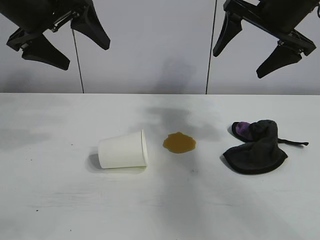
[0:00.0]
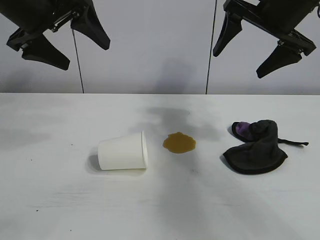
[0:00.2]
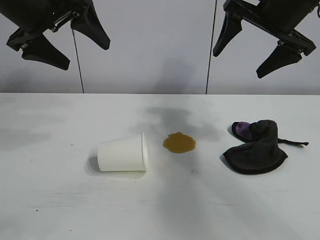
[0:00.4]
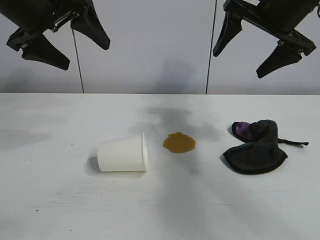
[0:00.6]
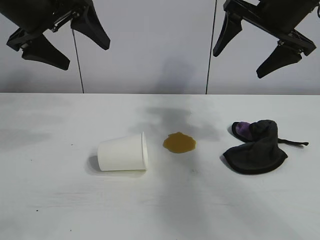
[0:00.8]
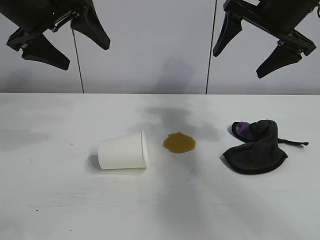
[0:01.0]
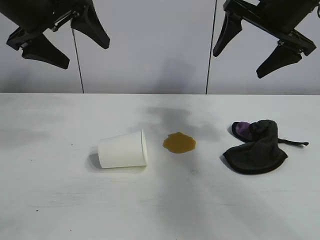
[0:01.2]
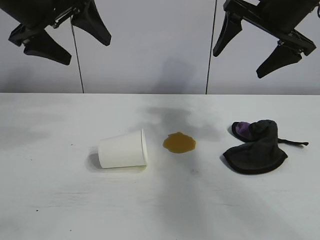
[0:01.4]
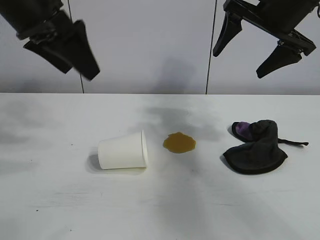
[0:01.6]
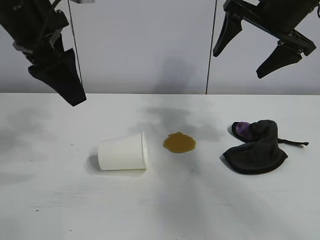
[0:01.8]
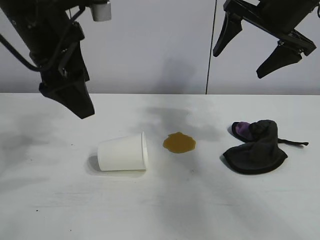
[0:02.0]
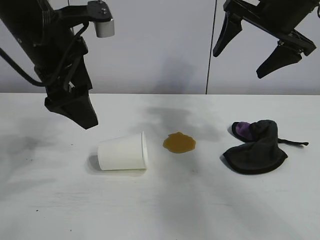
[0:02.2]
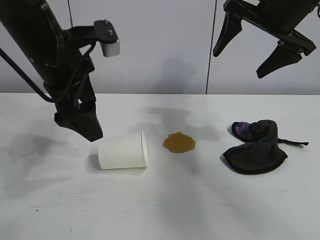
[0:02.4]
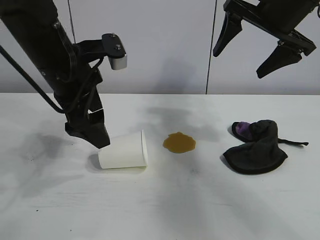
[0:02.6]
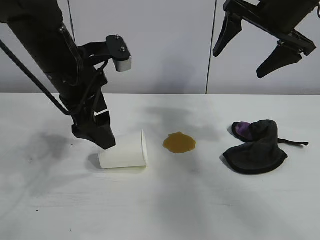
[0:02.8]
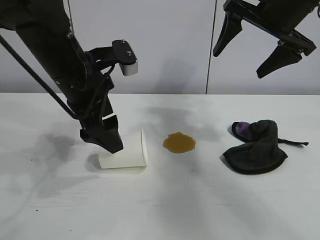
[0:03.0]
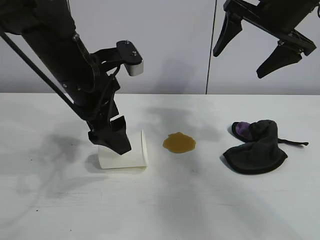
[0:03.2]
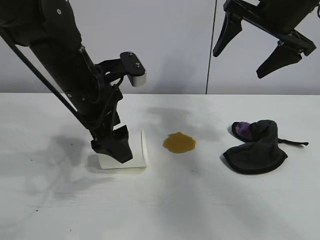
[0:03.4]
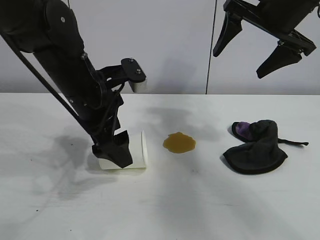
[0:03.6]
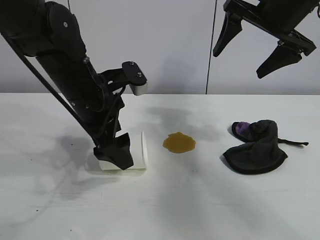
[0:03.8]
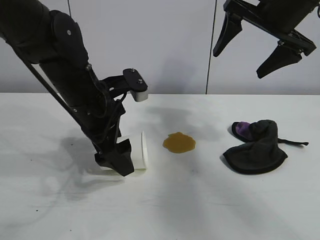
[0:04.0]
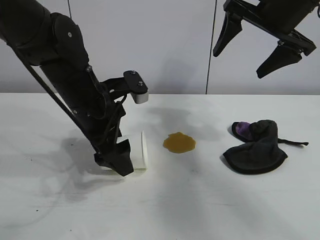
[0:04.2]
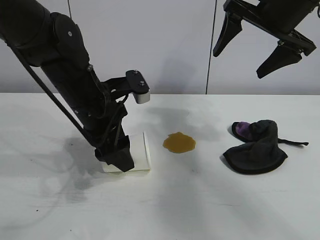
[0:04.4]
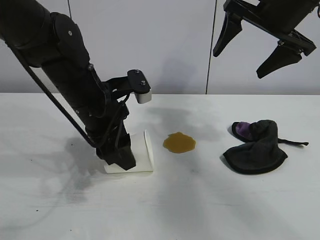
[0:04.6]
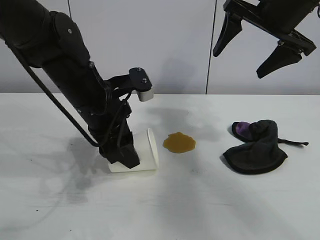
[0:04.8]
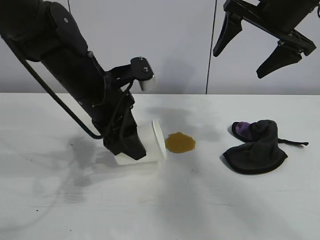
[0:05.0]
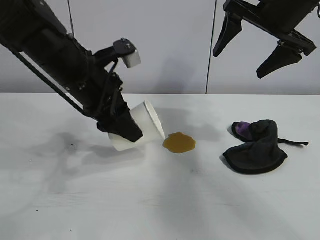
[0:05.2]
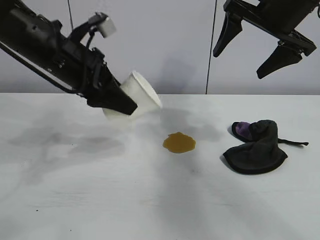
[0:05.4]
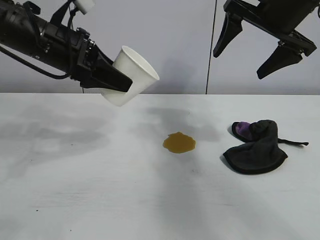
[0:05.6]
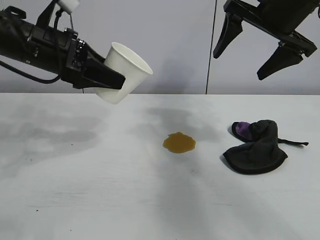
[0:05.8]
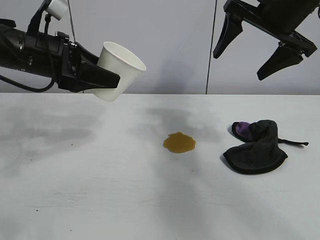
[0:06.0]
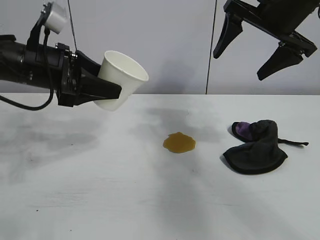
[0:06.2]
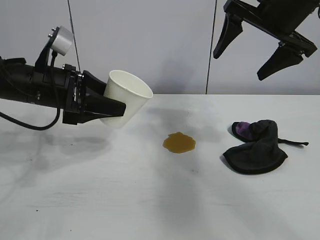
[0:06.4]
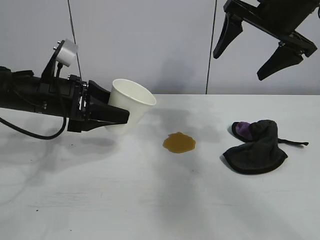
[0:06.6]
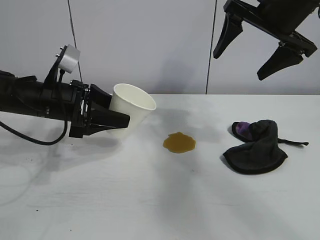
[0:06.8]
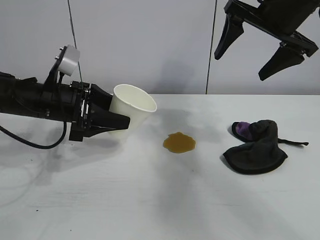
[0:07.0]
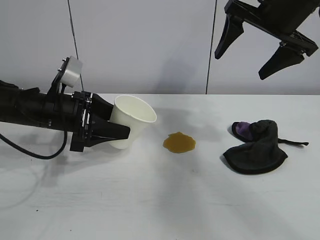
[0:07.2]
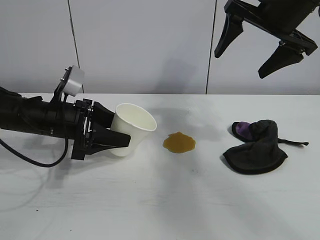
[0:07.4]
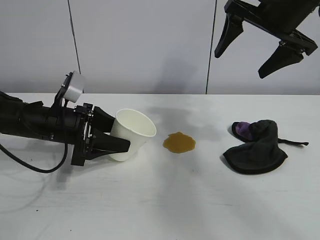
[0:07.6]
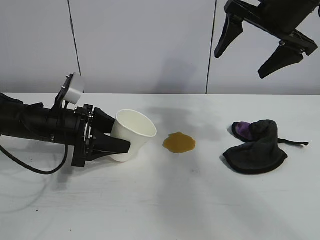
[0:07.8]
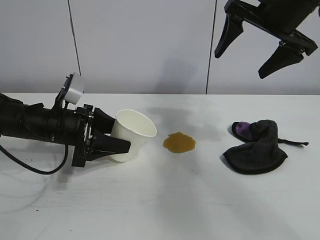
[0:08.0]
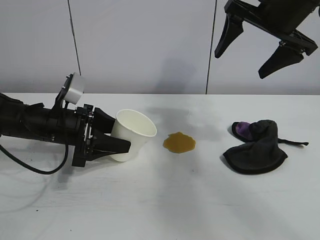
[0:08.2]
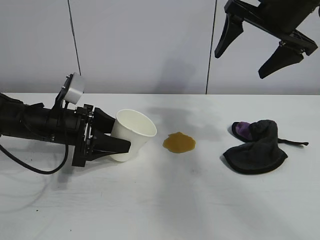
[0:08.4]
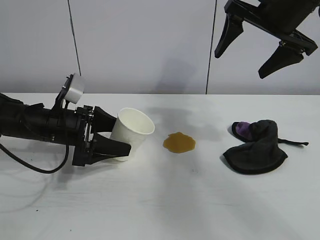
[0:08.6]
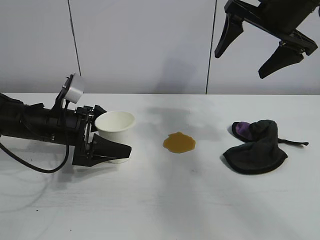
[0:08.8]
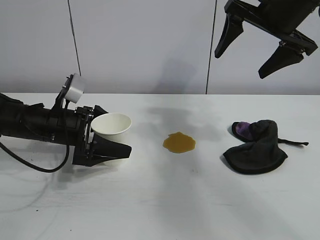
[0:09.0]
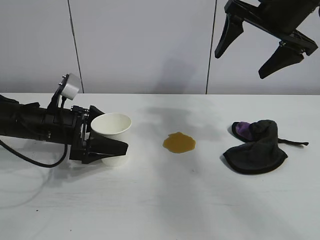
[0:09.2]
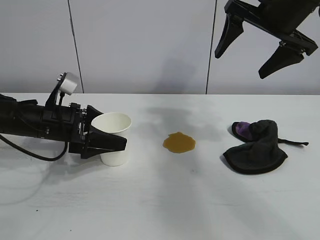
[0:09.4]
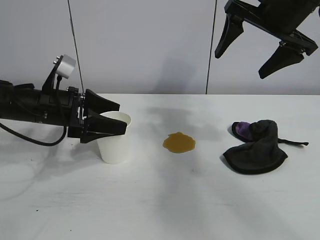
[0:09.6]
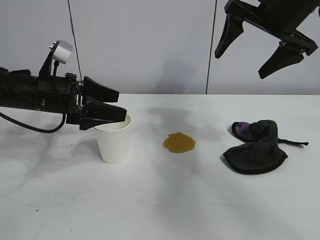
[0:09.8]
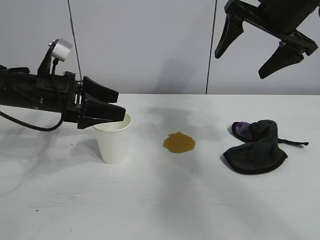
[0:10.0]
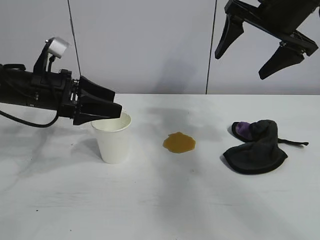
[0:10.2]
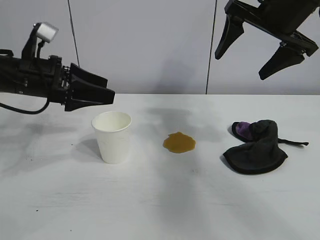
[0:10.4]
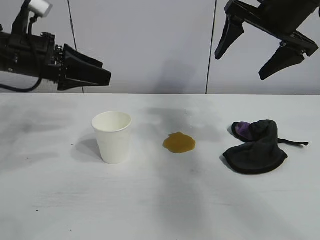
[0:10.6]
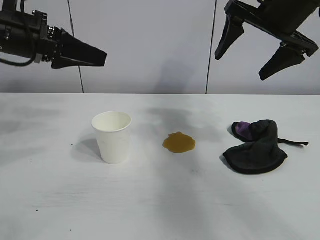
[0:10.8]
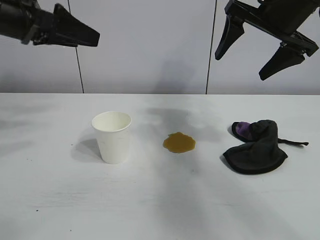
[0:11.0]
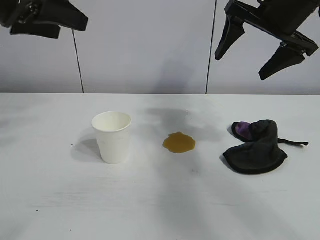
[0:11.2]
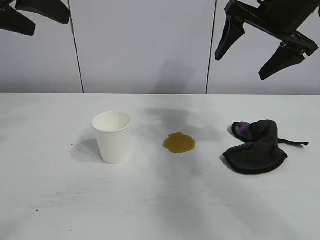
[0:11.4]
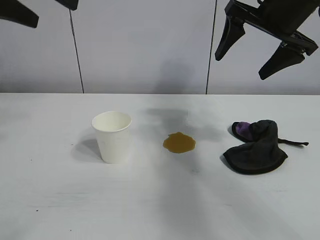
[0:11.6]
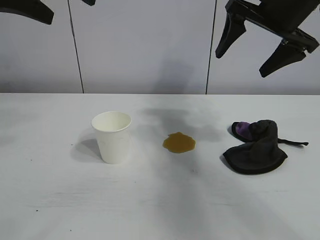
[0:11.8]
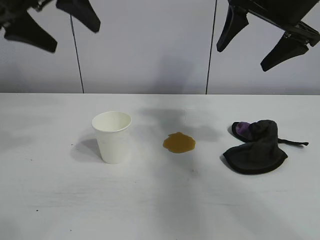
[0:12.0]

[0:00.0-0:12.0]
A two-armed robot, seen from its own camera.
Task of the whole recording: the left gripper pick up the fallen cup and place it upright, the right gripper grasp the black rag and wipe the stain on the table, the right gripper put the black rag back in its original position.
Step, 0:01.2 to 0:04.2: Grasp the paper cup with left gripper.
Step, 0:04.4 to 0:08.8: Stand the paper cup upright with left gripper.

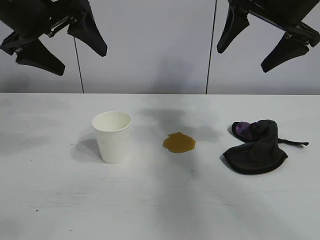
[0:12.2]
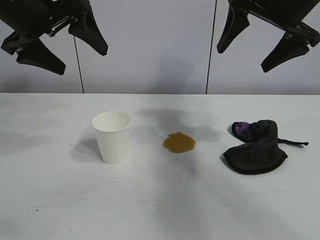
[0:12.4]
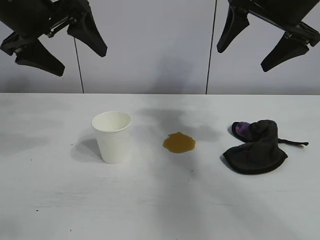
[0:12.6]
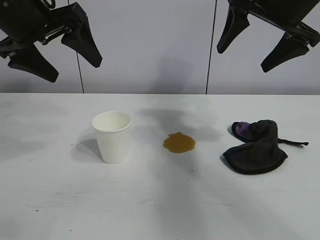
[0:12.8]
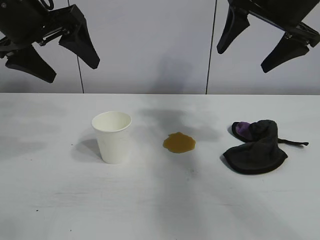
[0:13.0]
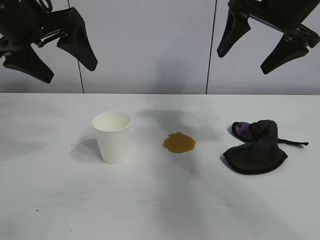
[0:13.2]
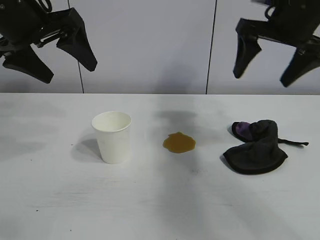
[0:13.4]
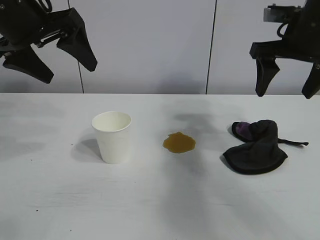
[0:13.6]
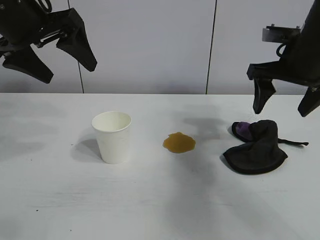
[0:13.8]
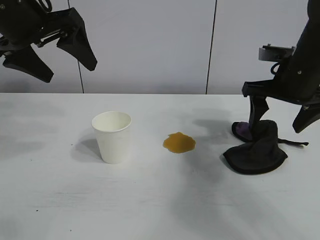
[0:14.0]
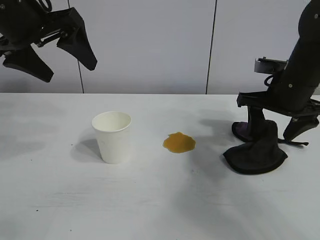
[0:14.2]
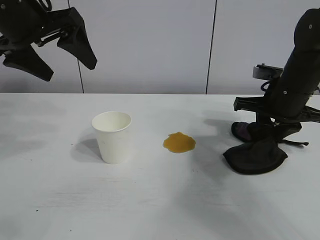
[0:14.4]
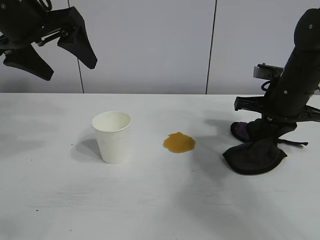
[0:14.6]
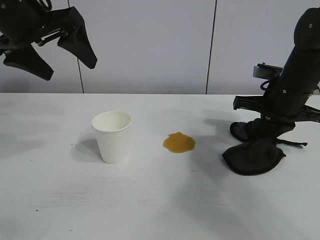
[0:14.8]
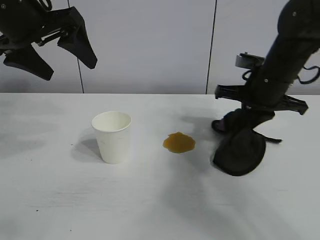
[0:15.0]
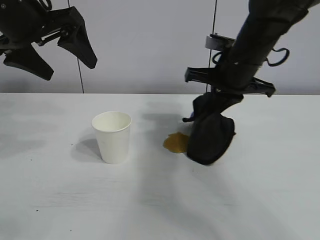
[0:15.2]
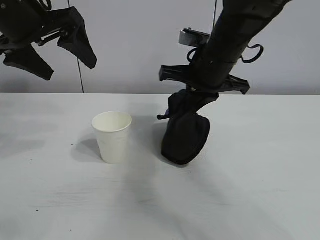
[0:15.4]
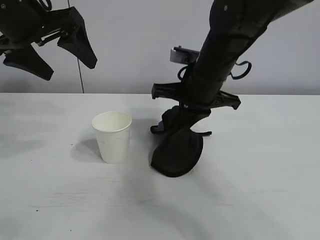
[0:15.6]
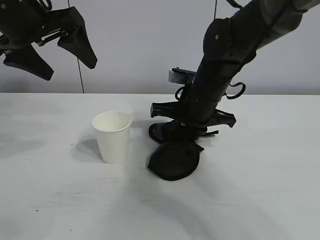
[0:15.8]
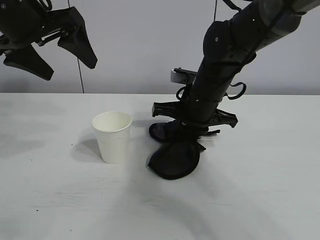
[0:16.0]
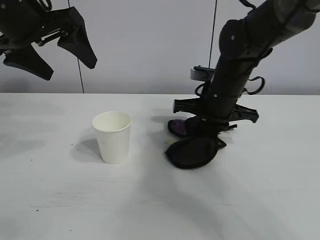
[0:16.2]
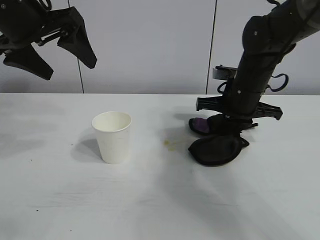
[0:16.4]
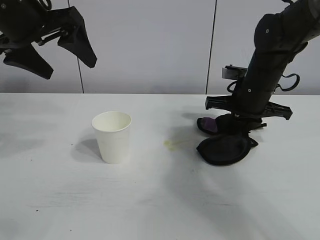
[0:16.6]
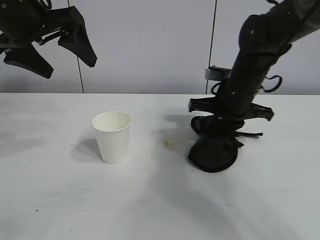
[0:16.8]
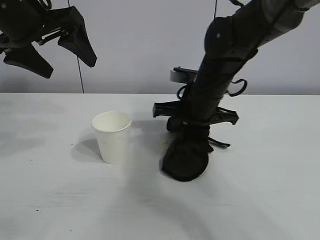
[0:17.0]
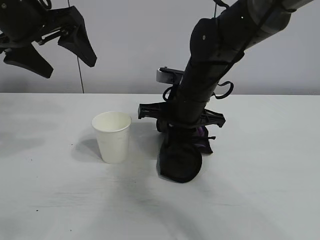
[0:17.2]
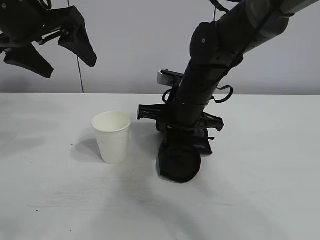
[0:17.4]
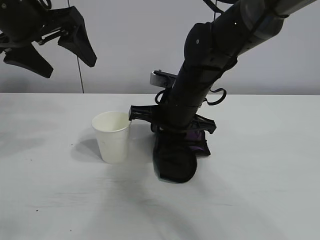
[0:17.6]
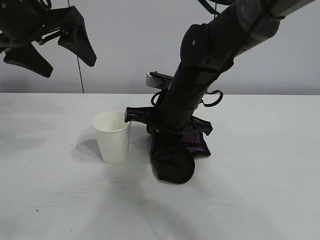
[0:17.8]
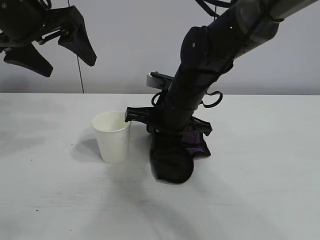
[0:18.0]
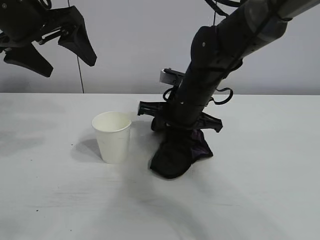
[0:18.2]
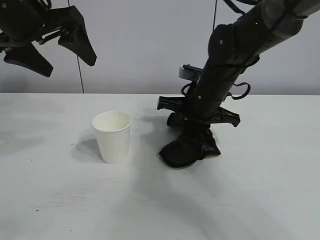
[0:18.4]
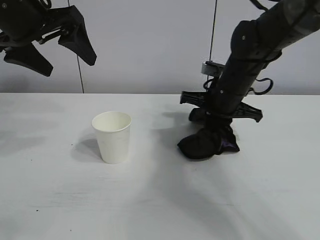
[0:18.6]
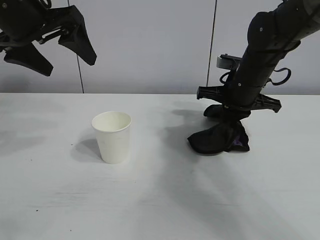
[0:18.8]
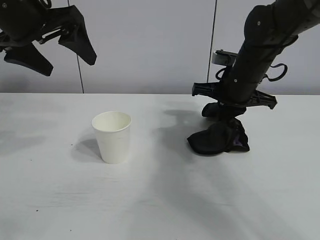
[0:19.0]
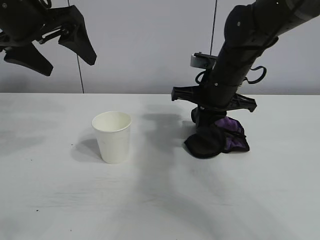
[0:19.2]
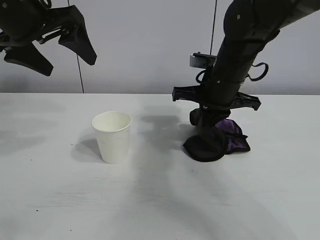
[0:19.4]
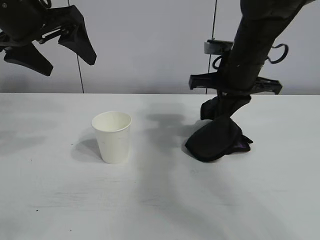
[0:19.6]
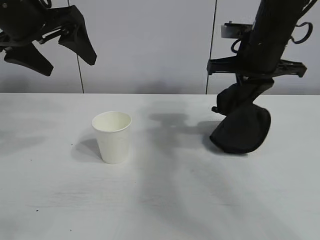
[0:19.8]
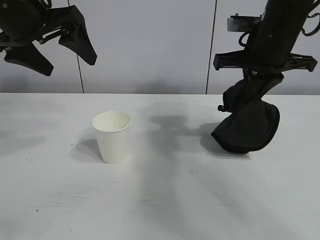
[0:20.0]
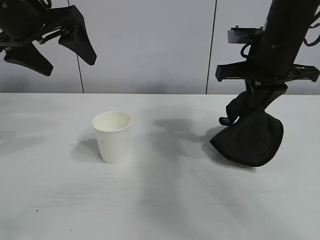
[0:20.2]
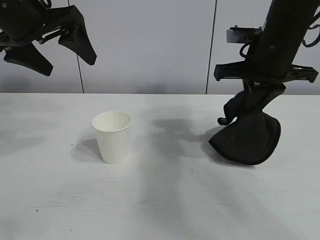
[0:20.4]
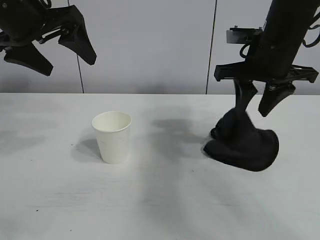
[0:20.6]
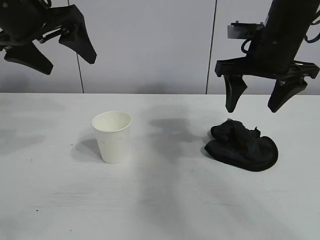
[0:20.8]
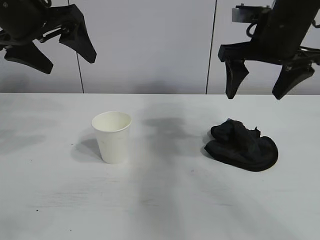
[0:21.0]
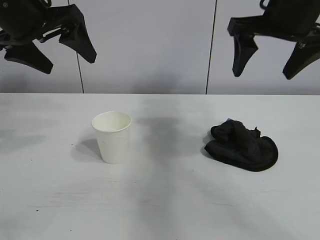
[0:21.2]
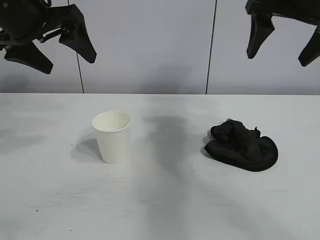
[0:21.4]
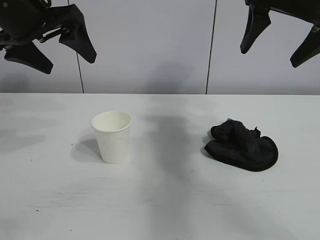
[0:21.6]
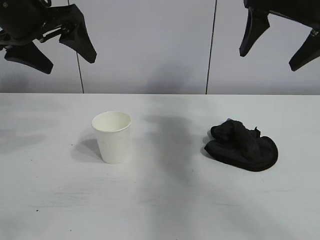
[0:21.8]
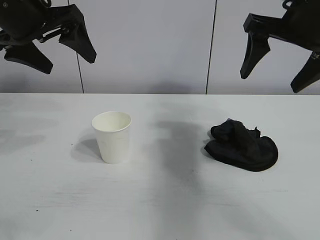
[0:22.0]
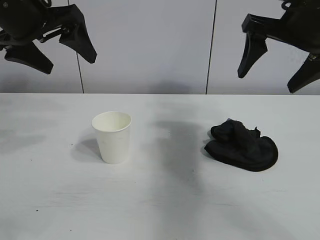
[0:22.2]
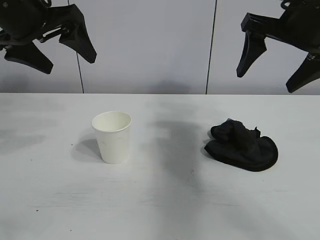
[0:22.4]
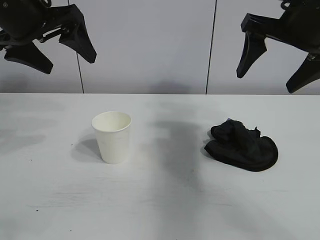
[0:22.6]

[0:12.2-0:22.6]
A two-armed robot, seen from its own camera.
Task of the whole recording: the left gripper pick up the fallen cup and place it upright, the right gripper grasp the black rag and wipe the stain on the table, the right gripper put the black rag back in its original position.
Step, 0:12.2 to 0:14.6: Grasp the rag with right gripper.
Step, 0:14.8 to 0:19.4: Wipe the stains off the table with the rag with right gripper.
Step, 0:19.6 to 0:20.6: Place the rag on the table with right gripper.
